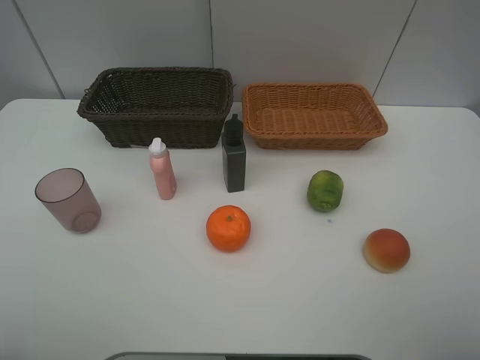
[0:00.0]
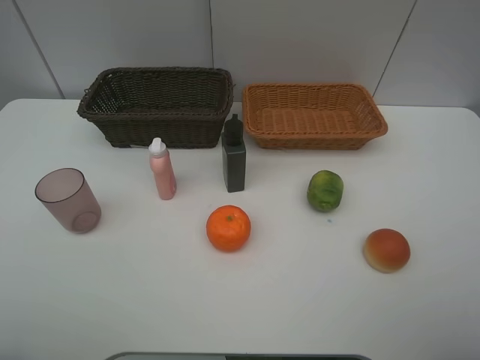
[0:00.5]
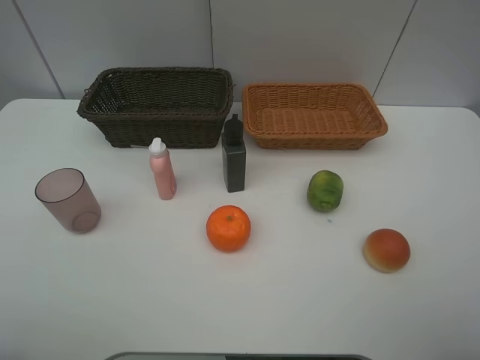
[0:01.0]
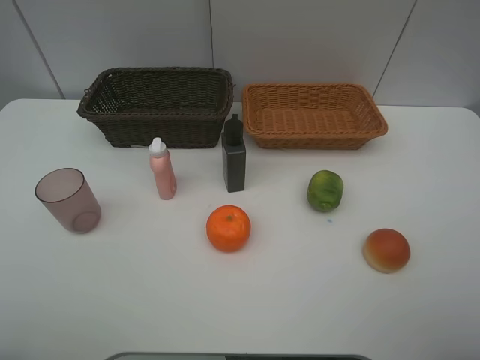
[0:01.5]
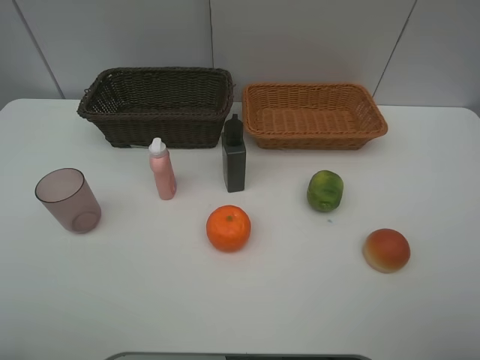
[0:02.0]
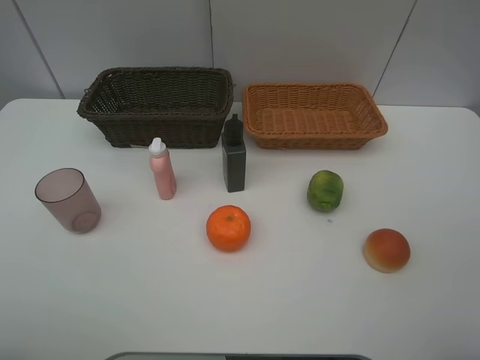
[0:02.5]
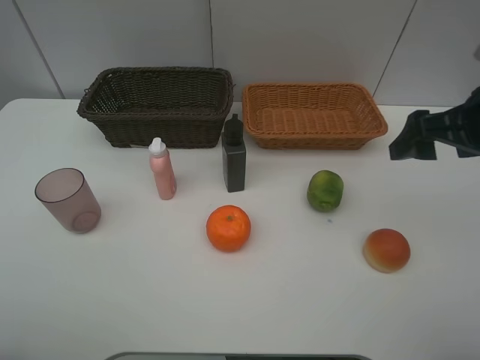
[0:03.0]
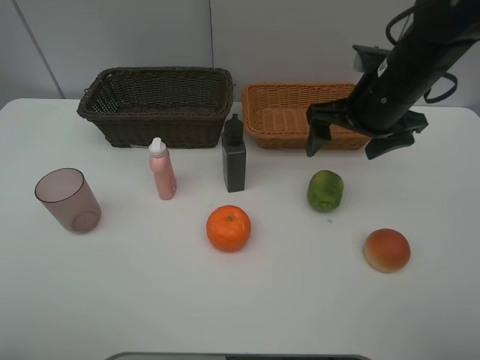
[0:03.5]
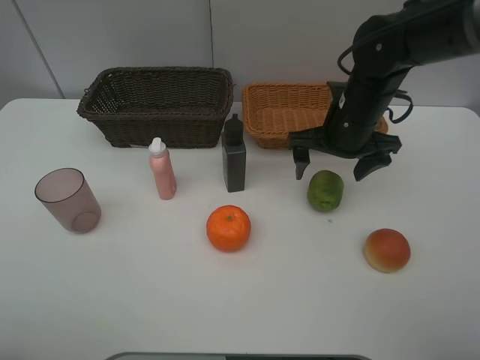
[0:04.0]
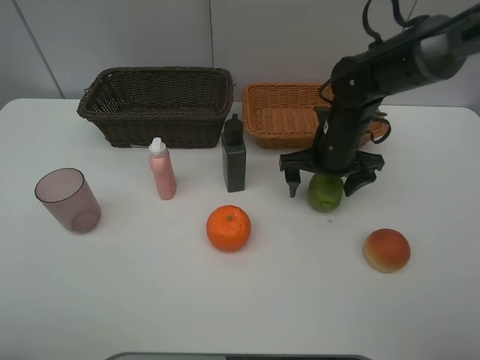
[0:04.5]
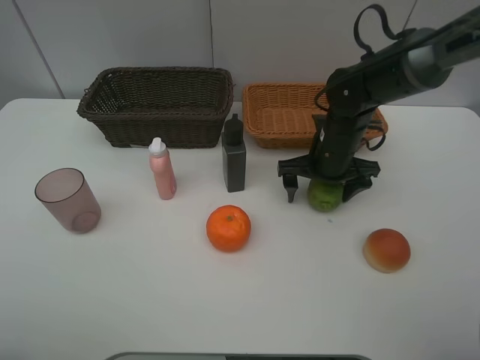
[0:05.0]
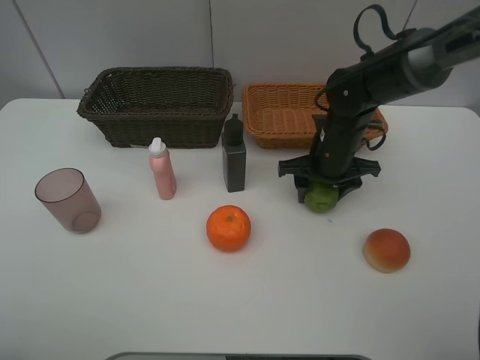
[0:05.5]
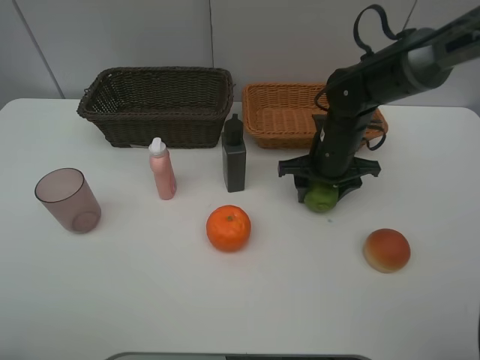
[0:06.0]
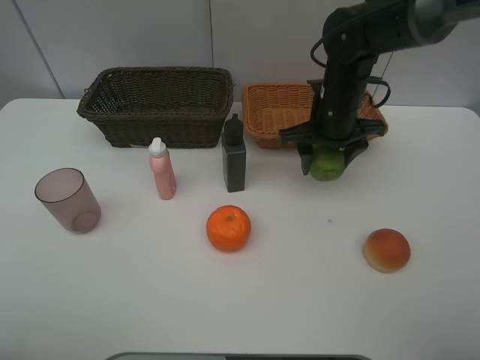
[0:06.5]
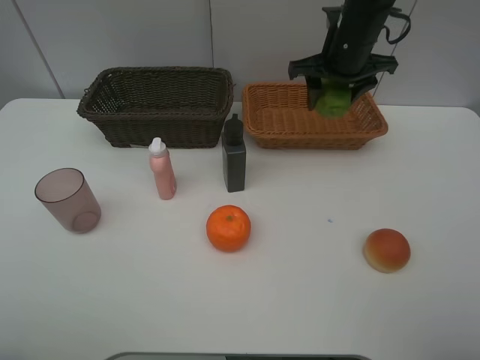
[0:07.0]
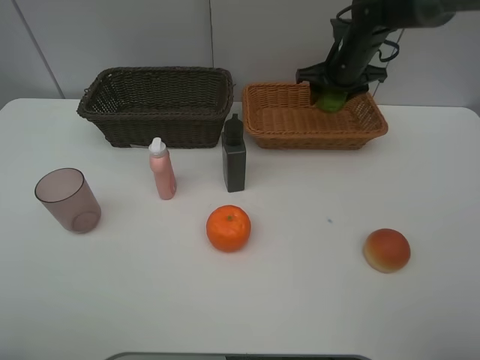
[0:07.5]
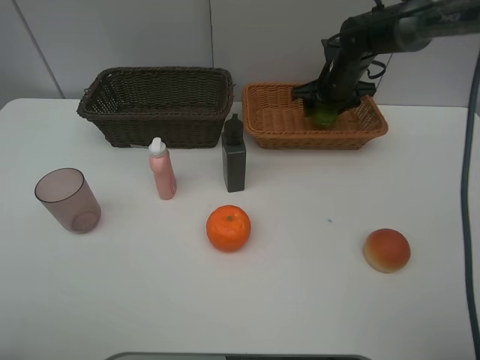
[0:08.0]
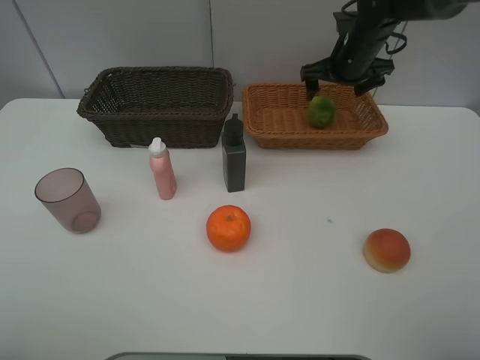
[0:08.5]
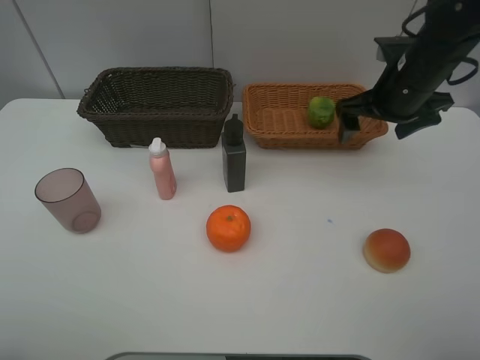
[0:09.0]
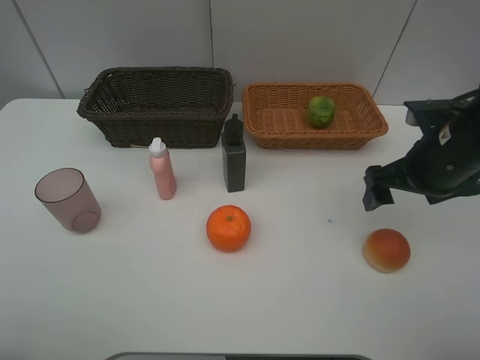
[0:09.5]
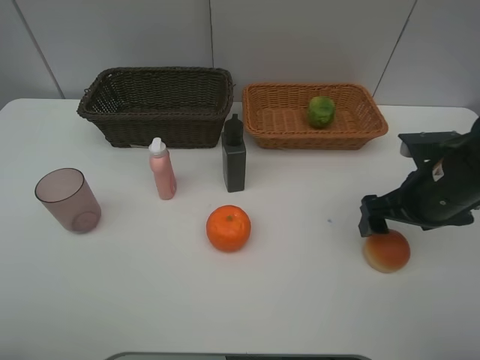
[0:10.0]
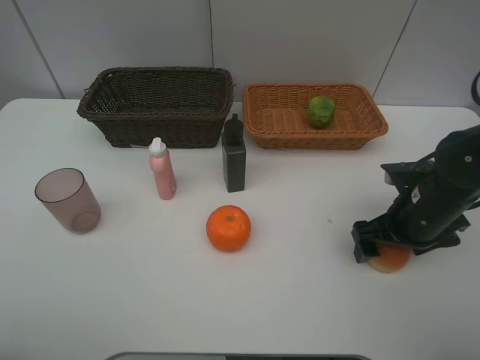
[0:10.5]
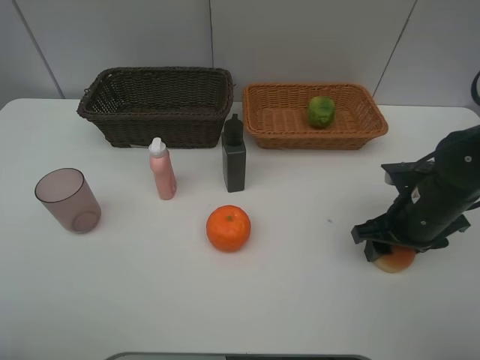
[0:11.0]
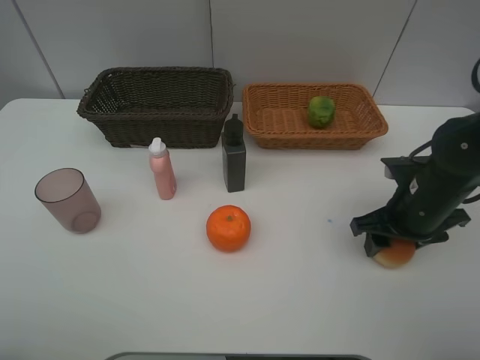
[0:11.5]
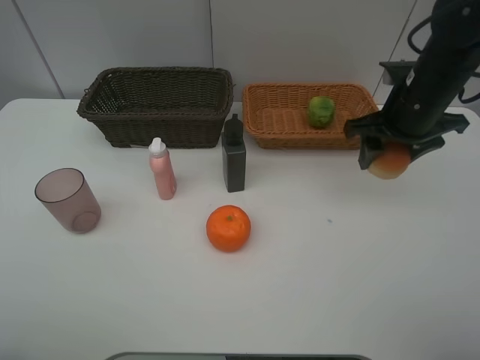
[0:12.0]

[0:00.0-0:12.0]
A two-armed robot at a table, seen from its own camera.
Task of the whole recording: place multiple objects separately in different baskets.
0:00.0 to 0:02.0: Both grippers stay put.
0:02.0 to 0:04.0: The right gripper travels forward and to the left by approximately 35 cm.
0:04.0 to 0:06.0: The right gripper is displaced downward by about 5 cm, and closes.
0:06.0 to 0:08.0: The right gripper moves forward, about 15 cm.
0:08.0 to 0:10.0: The right gripper shifts roughly 25 cm backward, and opens its fingers.
0:10.0 to 0:12.0: The right gripper shifts roughly 15 cm forward and upward, and closes up.

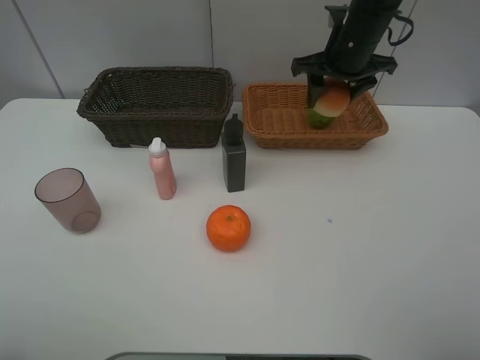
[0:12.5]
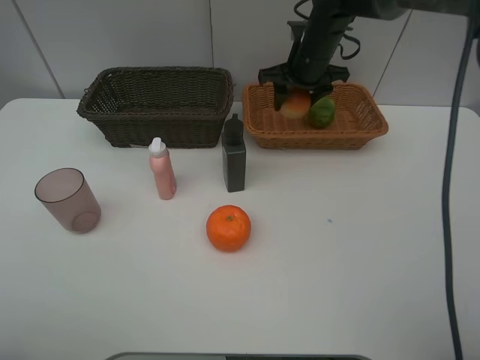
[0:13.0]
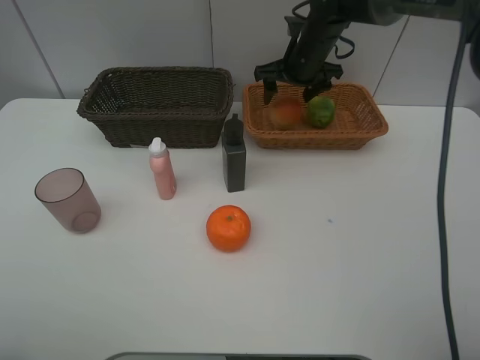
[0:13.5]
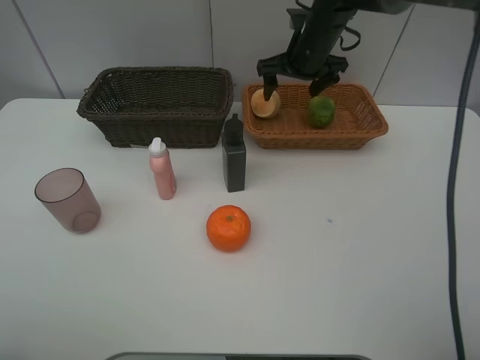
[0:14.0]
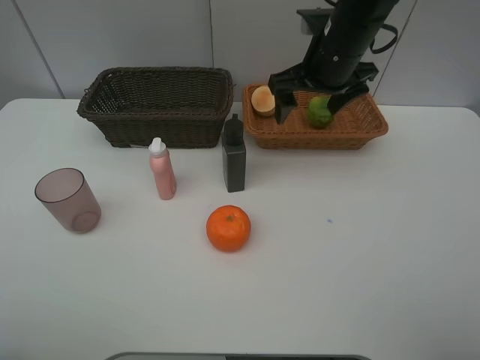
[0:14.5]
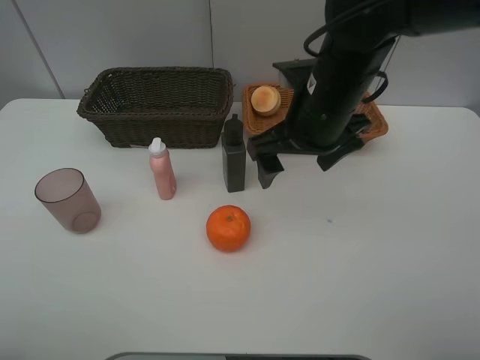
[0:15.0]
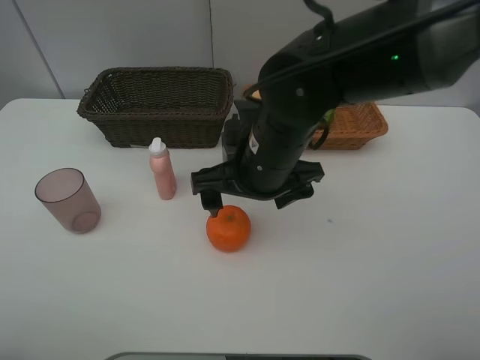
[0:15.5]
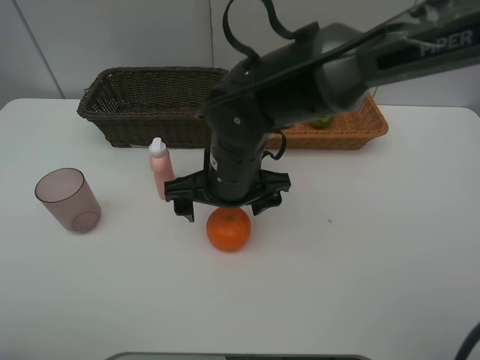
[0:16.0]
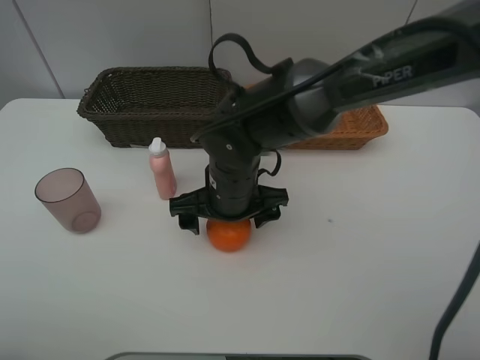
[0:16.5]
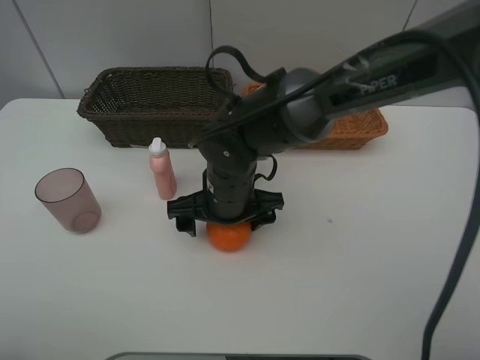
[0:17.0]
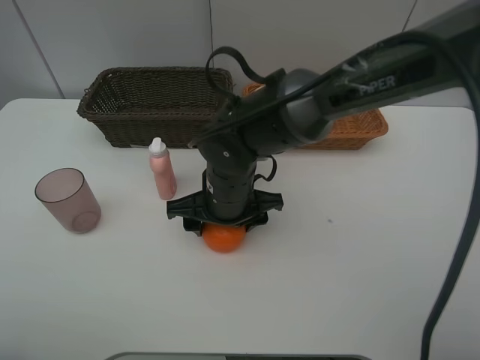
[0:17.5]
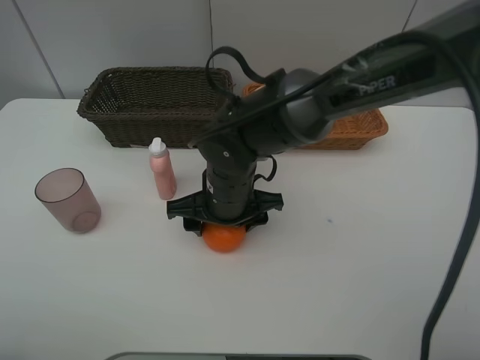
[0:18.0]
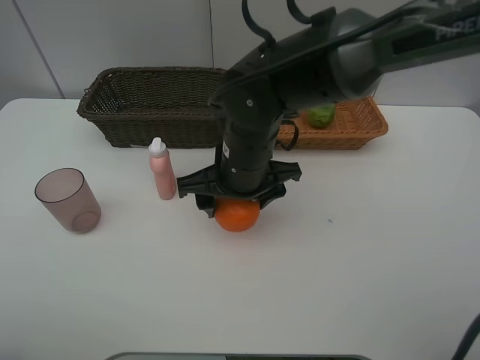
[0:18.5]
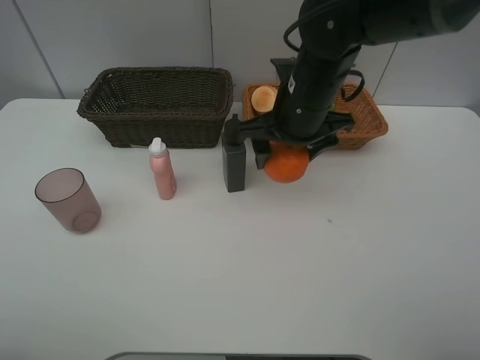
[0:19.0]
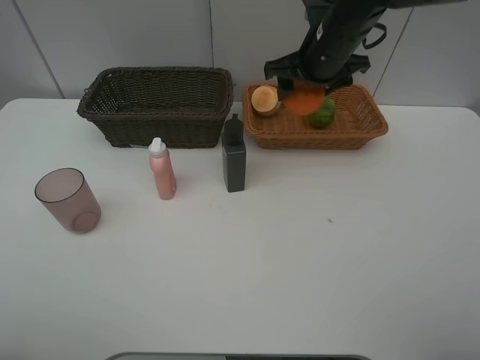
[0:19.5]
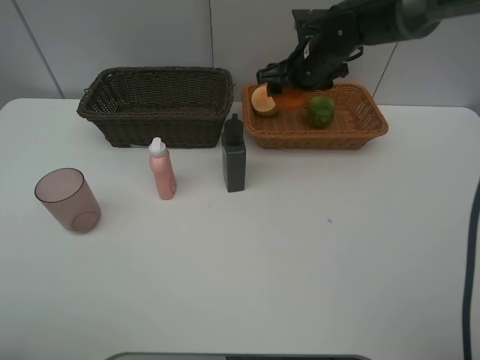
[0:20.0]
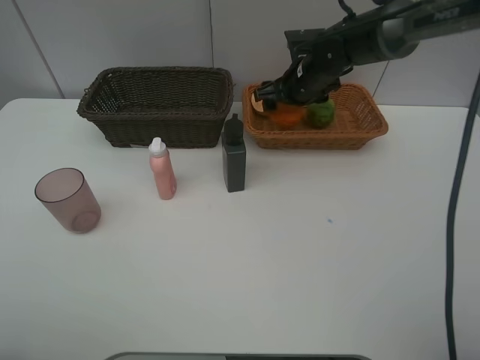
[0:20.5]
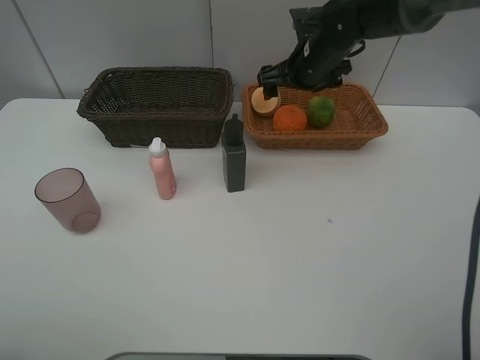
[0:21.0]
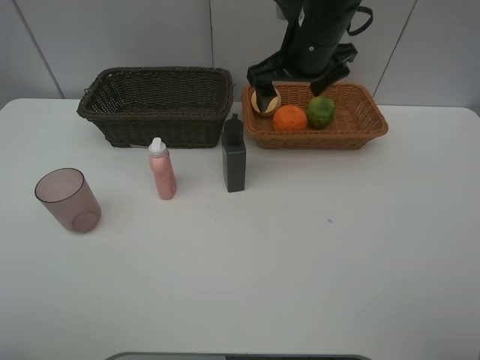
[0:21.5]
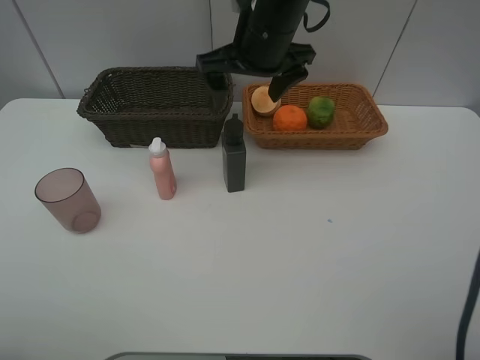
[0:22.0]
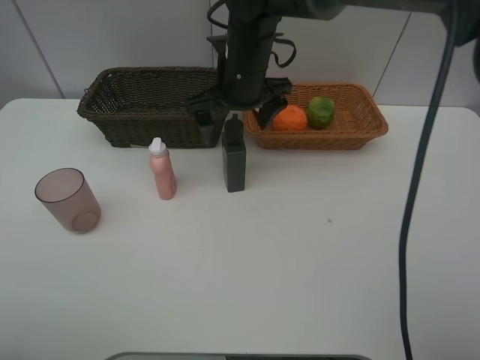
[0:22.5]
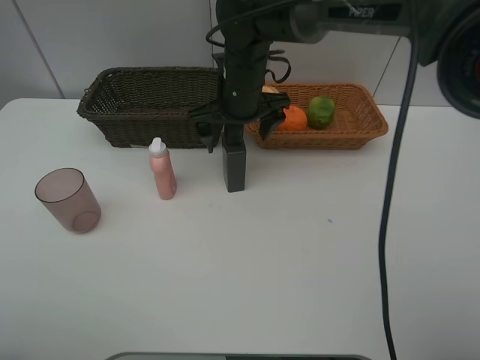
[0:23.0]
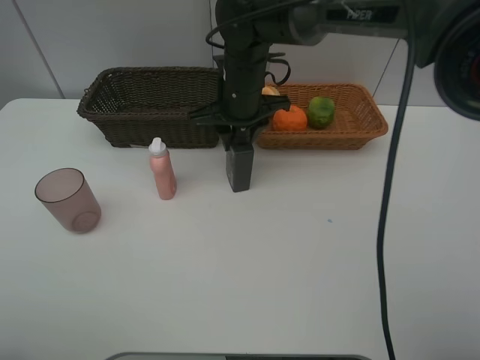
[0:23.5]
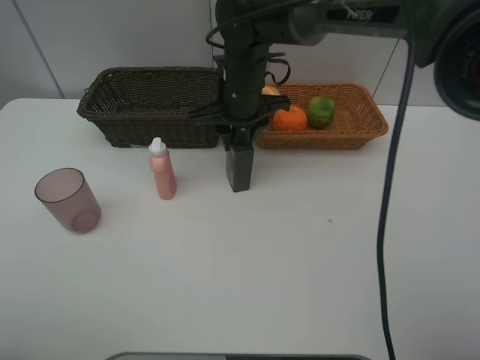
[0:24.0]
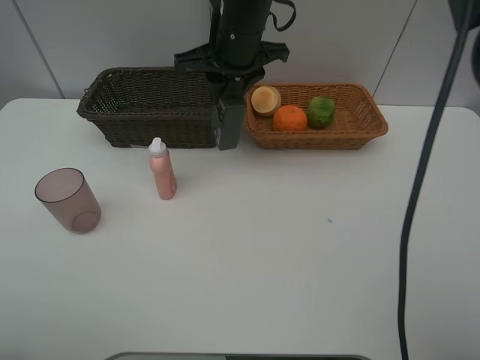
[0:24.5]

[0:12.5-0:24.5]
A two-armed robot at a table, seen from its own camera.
Task of the whole recording: place multiple objects separately in different baskets.
0:12.5 to 0:14.5: The right gripper is displaced backward by roughly 5 cm, and opens.
0:14.5 to 0:16.5: The right gripper shifts some 20 cm to the left, downward and backward.
0:16.5 to 0:18.5: The right gripper closes up.
0:18.5 to 0:20.5: The right gripper shifts roughly 20 cm forward and to the right.
0:20.5 to 0:22.5: The right gripper goes about 15 cm to the left, backward and upward.
0:22.5 to 0:24.5: The right gripper heads upward, covering approximately 5 cm, and closes up.

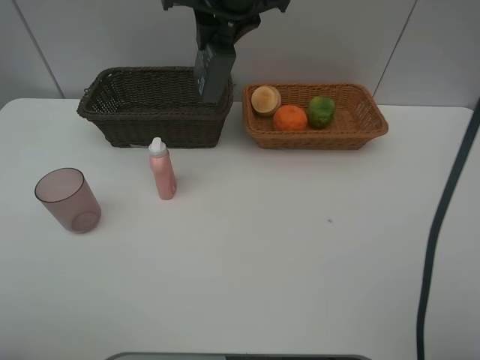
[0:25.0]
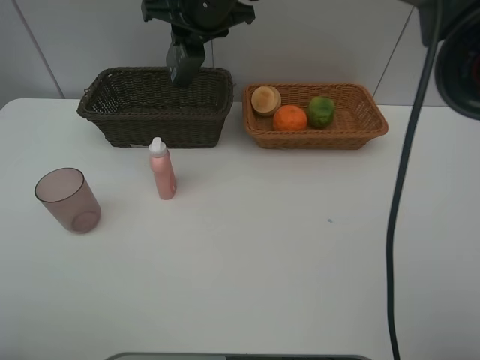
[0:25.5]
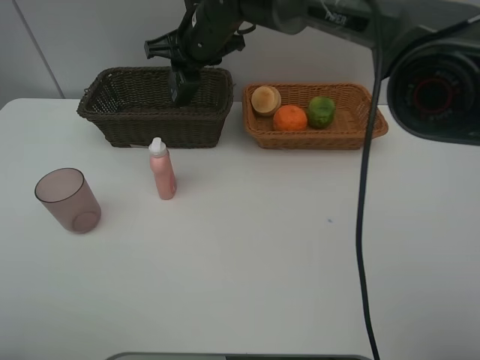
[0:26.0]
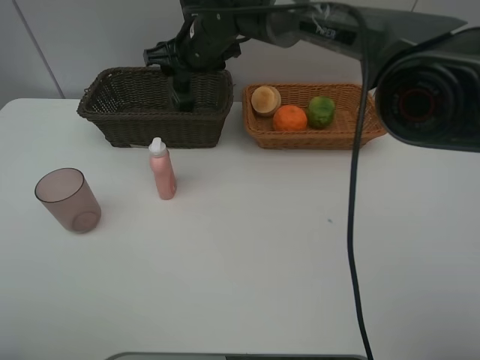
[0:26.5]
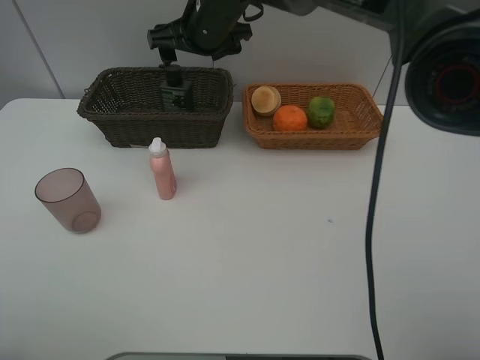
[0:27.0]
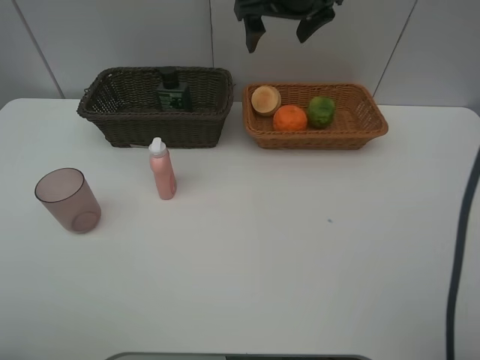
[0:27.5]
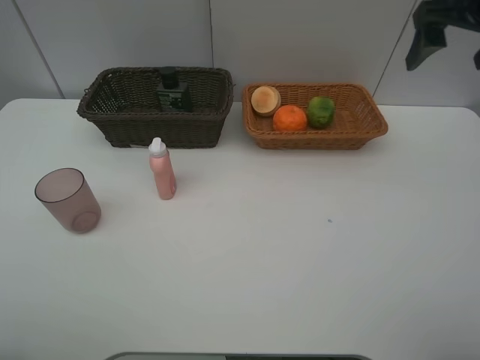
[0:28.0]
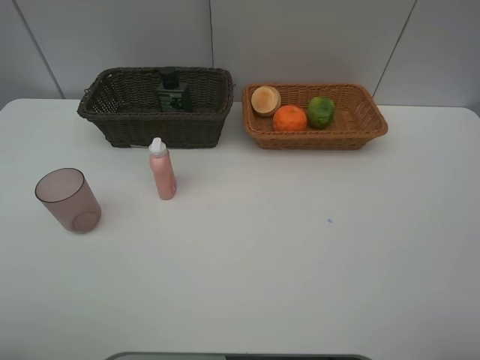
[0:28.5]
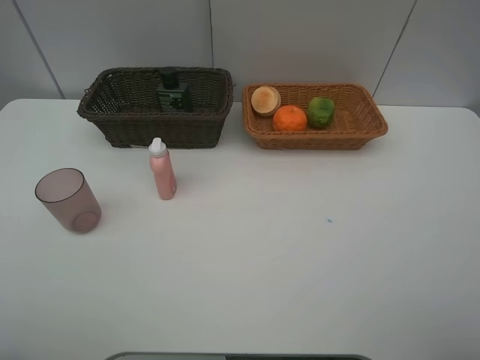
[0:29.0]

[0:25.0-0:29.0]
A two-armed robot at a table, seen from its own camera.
Task of the whole recording: place multiple objects separately in different baskets.
0:25.0 to 0:27.0: The right gripper moves downward, some 5 cm, and opens its fingers.
0:27.0 to 0:29.0: The right gripper travels backward and to the right by approximately 50 cm.
